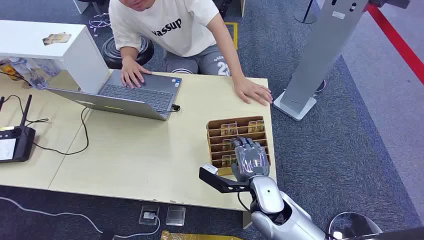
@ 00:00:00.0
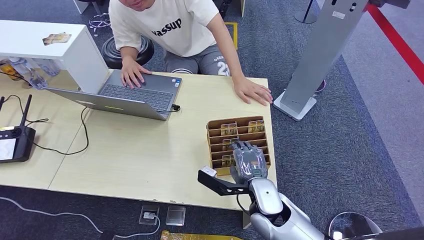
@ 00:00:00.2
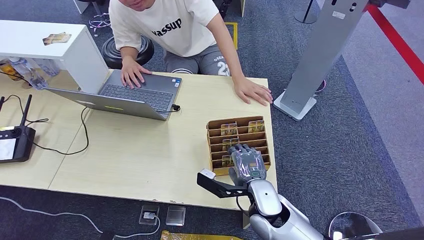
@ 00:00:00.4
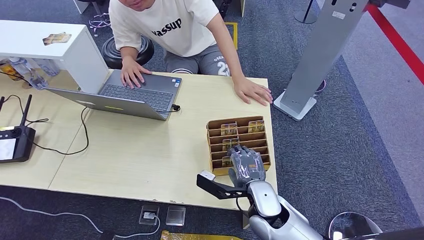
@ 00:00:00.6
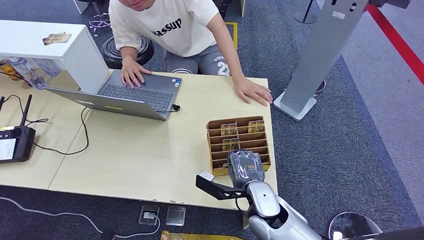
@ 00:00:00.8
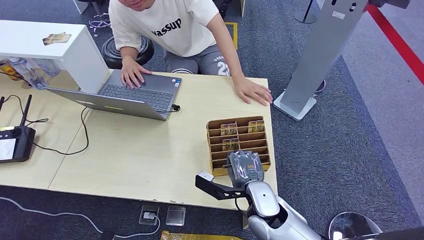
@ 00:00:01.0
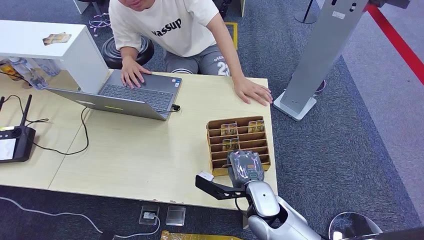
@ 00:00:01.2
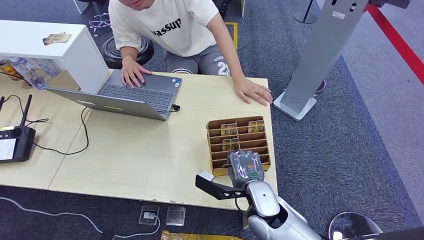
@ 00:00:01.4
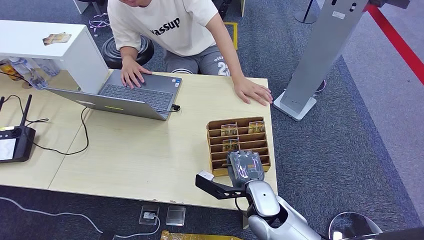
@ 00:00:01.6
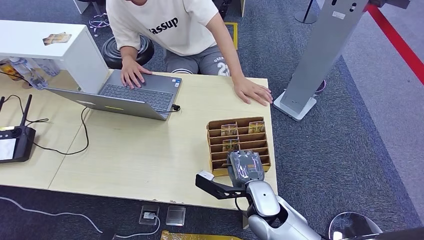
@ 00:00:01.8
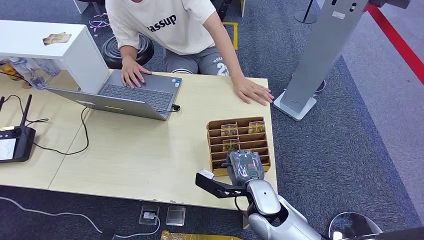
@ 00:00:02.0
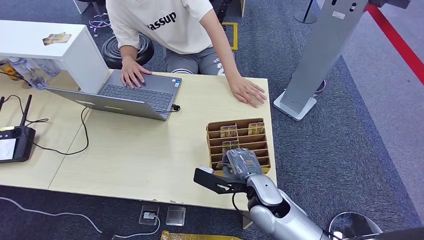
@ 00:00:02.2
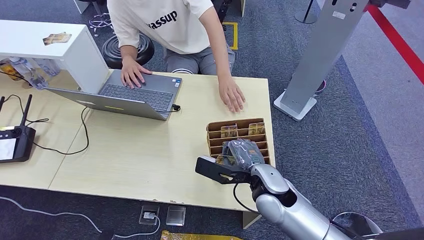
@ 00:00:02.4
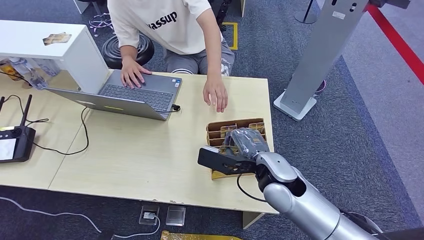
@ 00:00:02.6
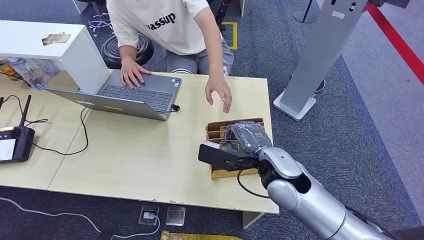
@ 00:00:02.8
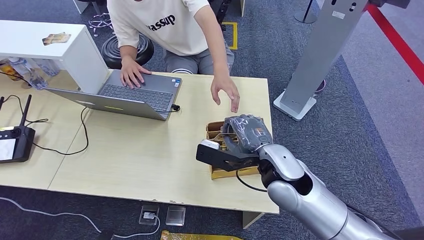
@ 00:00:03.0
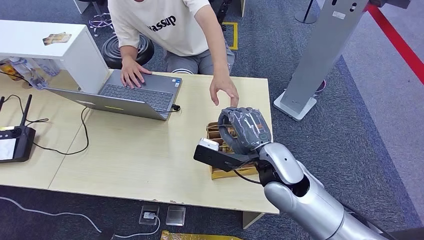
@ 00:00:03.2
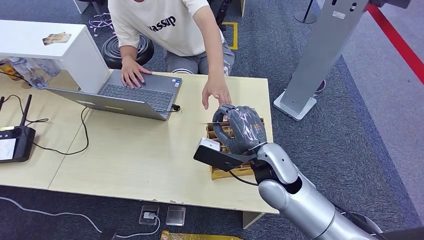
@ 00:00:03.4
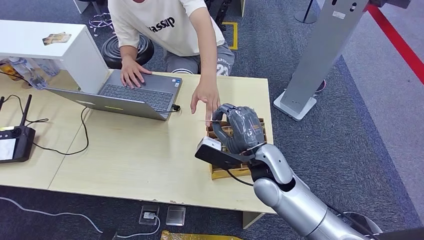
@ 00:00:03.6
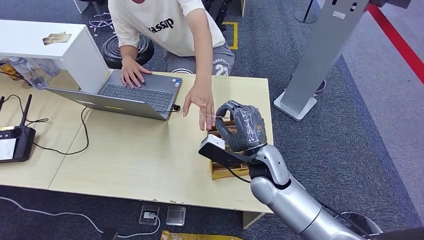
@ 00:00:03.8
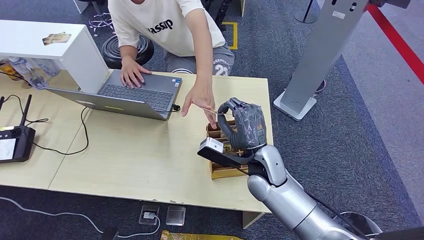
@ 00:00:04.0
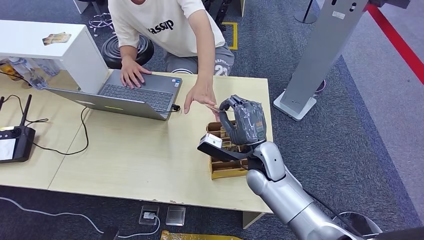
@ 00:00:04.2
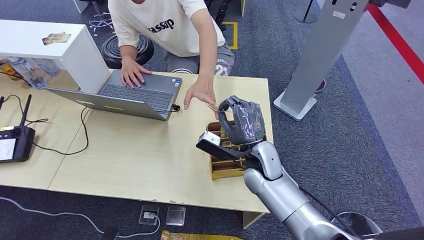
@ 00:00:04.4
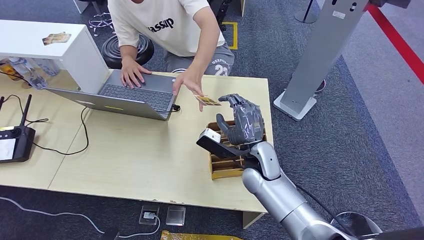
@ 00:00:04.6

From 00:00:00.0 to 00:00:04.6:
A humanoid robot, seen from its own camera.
Step, from 00:00:00.0 to 00:00:02.4: Pick up the key card from the card box.
Step, from 00:00:02.8 to 00:00:04.6: Hand the key card to the target.
From 00:00:01.6 to 00:00:03.0: The right hand shifts roughly 10 cm upward.
From 00:00:03.0 to 00:00:04.6: The right hand shifts roughly 10 cm downward.

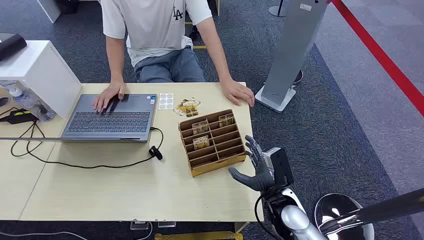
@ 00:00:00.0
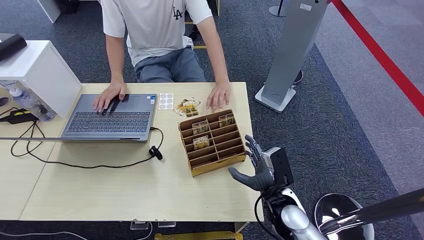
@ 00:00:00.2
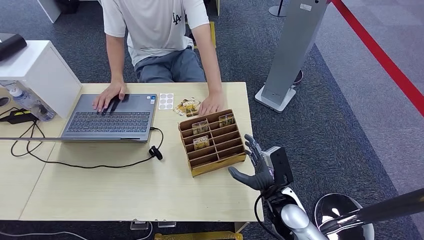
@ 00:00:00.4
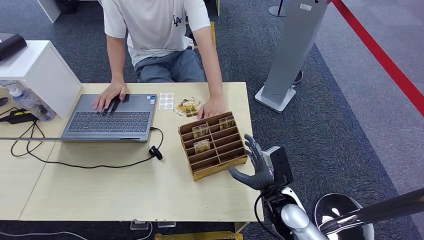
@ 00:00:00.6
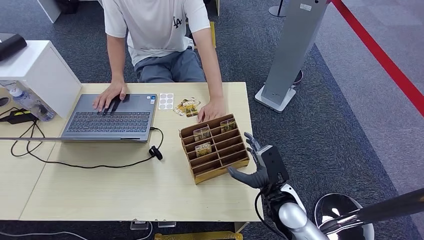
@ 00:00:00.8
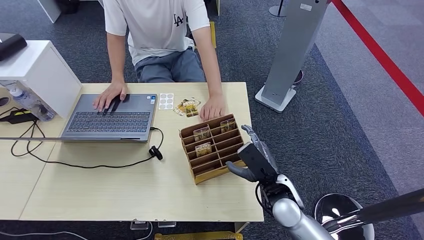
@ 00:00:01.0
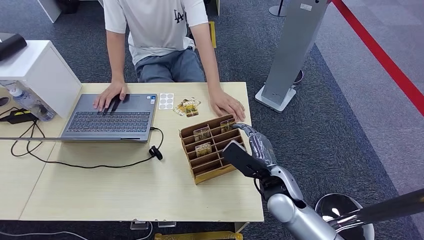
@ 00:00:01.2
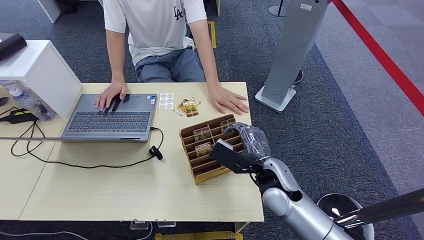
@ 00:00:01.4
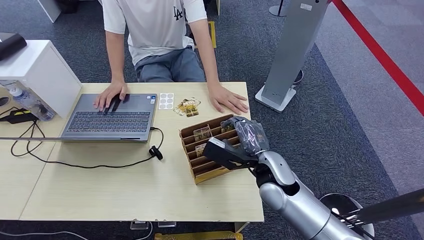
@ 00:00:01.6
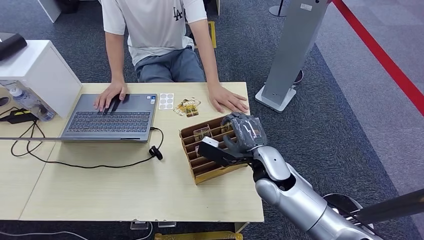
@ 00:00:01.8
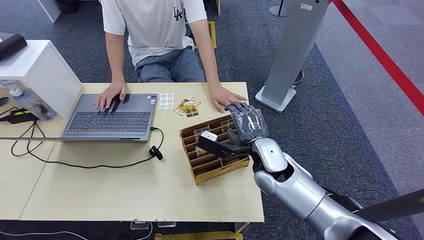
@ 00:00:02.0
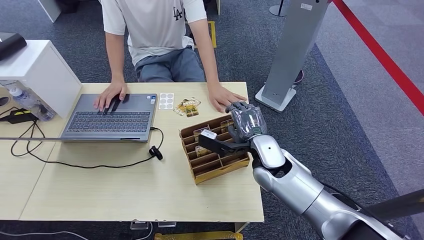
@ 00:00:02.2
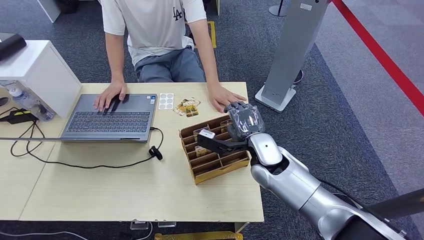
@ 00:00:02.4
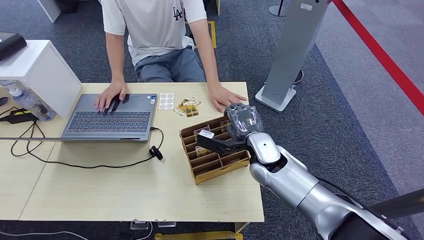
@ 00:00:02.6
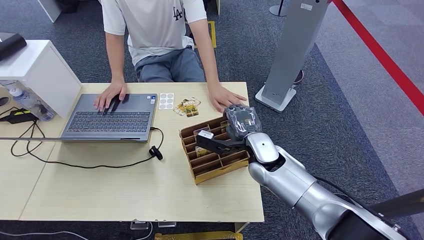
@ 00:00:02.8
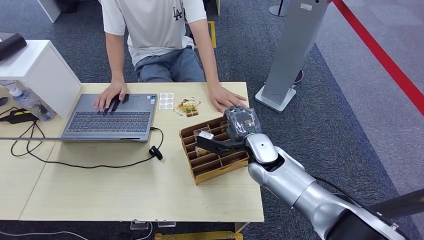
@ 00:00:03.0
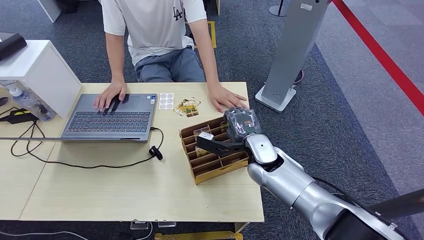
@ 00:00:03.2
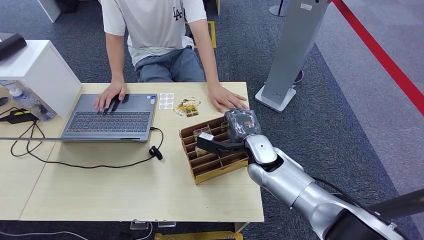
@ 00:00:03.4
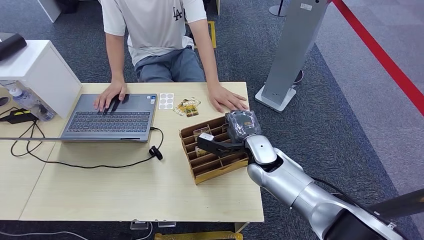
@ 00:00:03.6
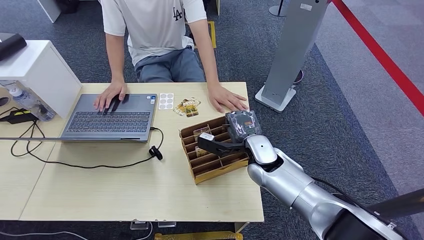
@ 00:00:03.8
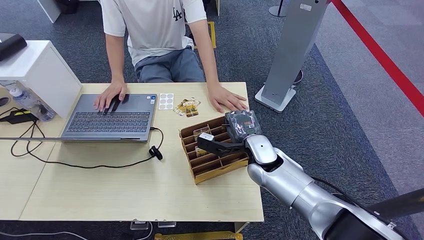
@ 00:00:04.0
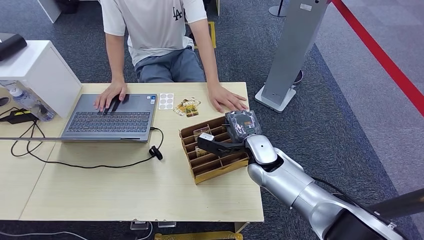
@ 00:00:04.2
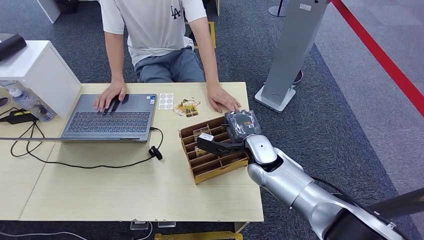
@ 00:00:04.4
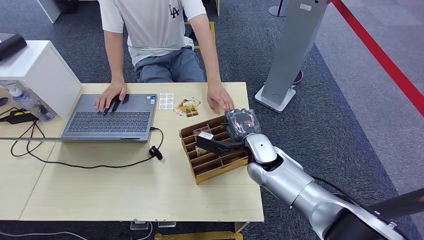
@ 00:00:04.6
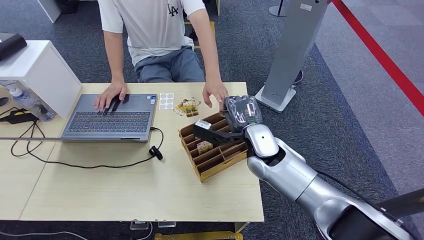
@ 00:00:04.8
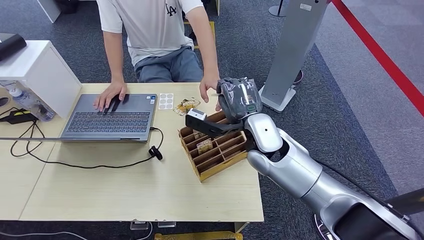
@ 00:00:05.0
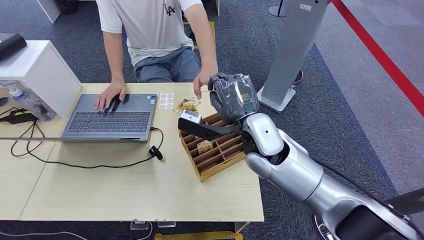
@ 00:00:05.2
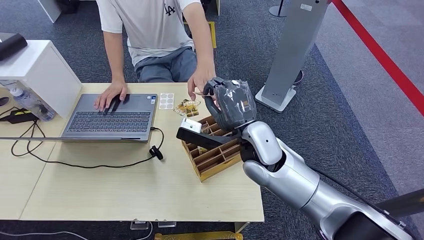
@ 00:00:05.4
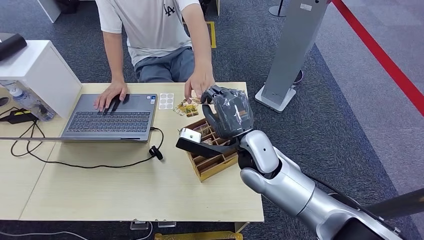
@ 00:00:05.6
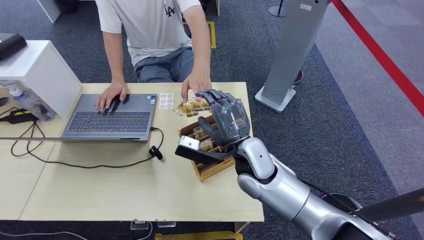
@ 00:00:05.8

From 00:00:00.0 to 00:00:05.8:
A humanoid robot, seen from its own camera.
Step, from 00:00:00.0 to 00:00:04.6: Pick up the key card from the card box.
Step, from 00:00:04.8 to 00:00:05.8: Hand the key card to the target.
From 00:00:01.4 to 00:00:02.8: The right hand shifts approximately 5 cm forward.
From 00:00:02.8 to 00:00:04.4: The hands make only small movements.
From 00:00:04.4 to 00:00:05.8: The right hand moves upward, approximately 5 cm.
